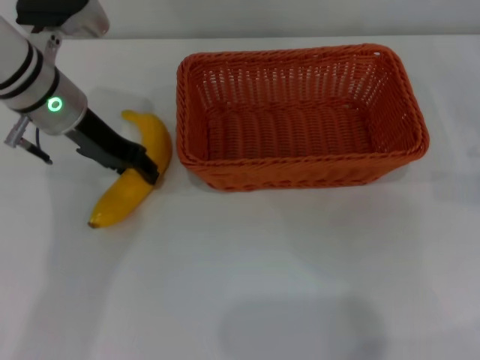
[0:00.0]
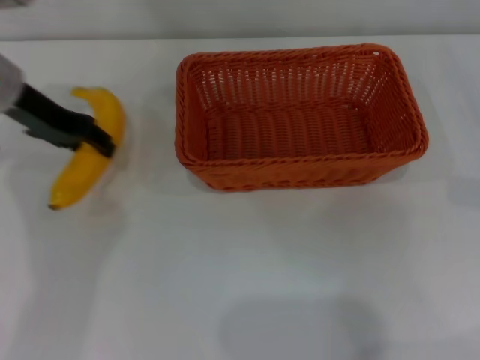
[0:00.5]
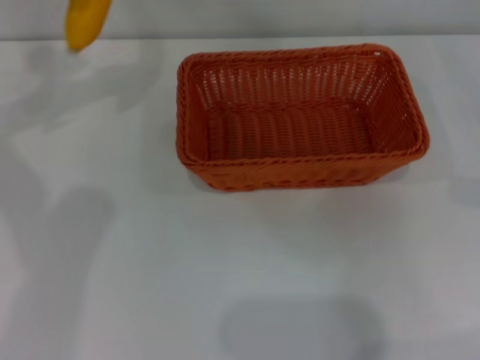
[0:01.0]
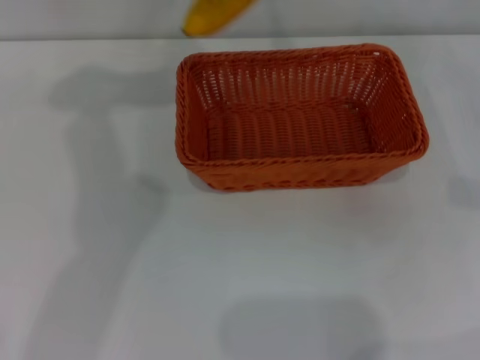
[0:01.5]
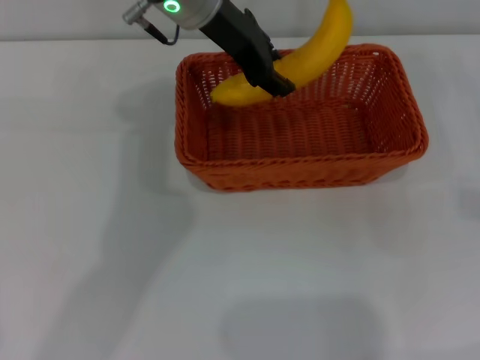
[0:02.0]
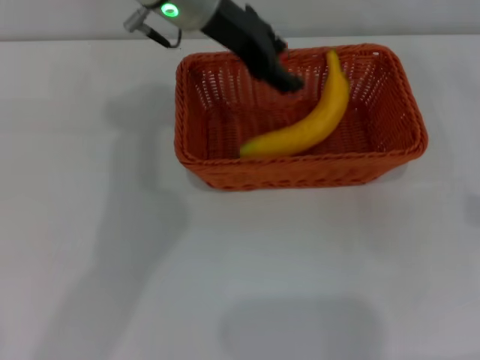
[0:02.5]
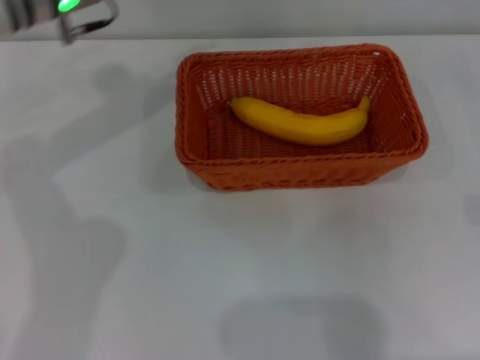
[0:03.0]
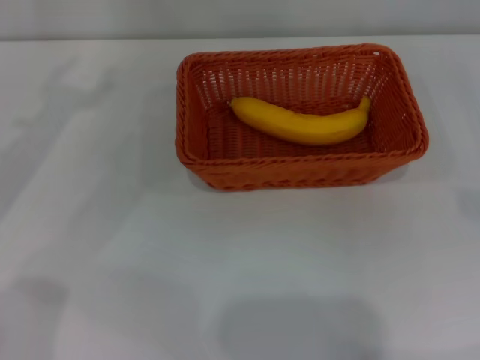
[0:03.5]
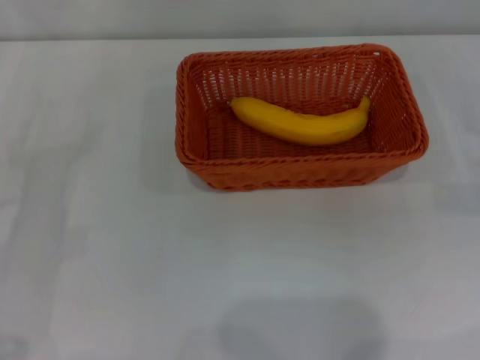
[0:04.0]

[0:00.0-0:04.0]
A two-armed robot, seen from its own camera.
Step, 0:01.0 to 0:02.5: Place the banana into the light basket with the left gripper.
0:00.0 to 0:02.0: The left gripper goes some 15 cm to the right and upward.
0:02.0 to 0:04.0: The left gripper heads to the left, downward and backward, covering some 35 cm, and opens up.
